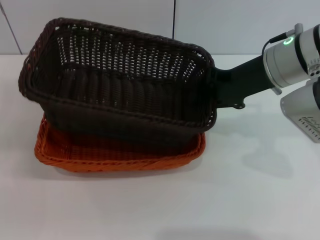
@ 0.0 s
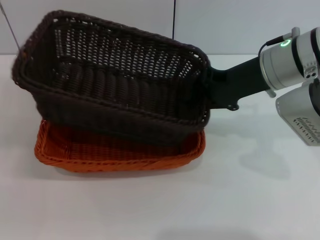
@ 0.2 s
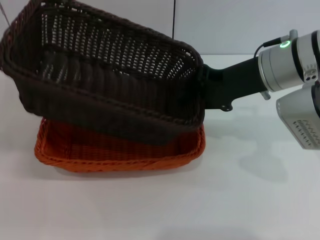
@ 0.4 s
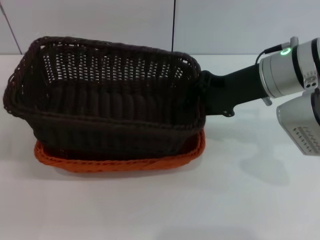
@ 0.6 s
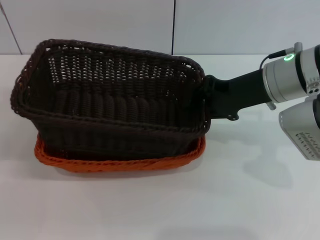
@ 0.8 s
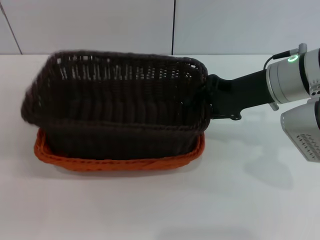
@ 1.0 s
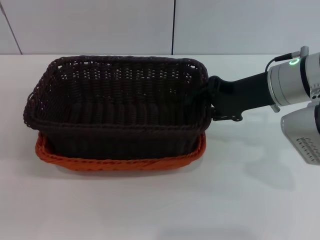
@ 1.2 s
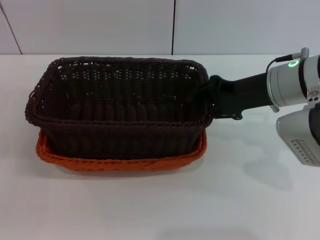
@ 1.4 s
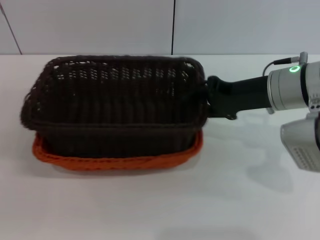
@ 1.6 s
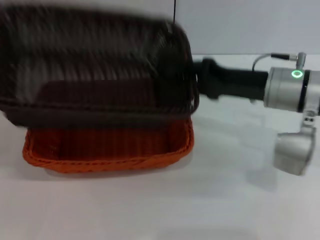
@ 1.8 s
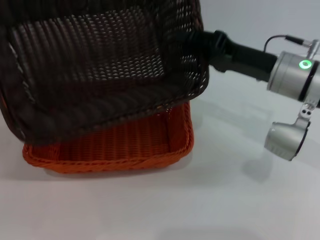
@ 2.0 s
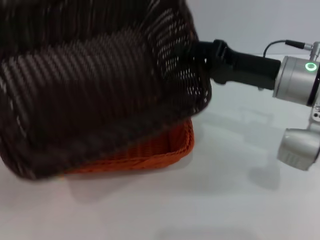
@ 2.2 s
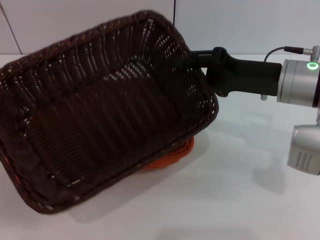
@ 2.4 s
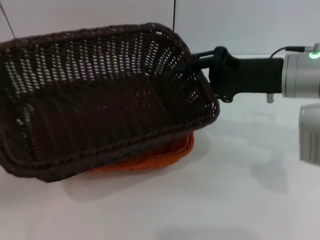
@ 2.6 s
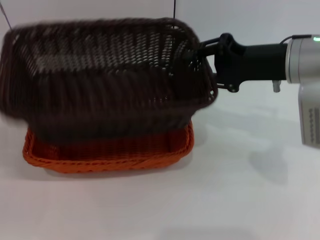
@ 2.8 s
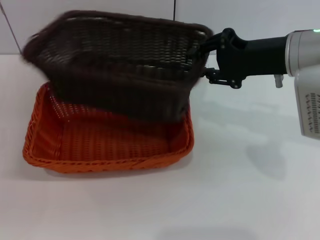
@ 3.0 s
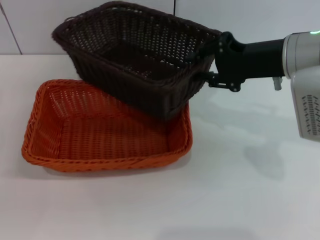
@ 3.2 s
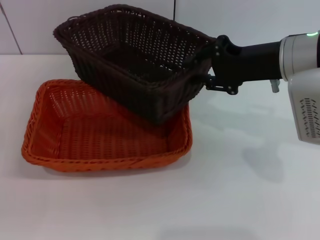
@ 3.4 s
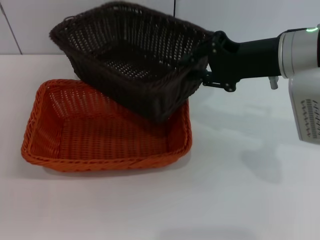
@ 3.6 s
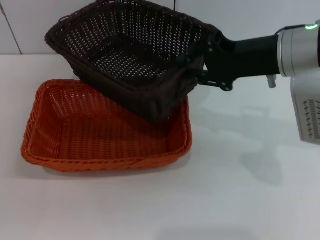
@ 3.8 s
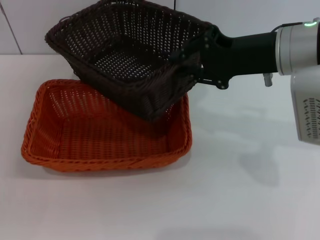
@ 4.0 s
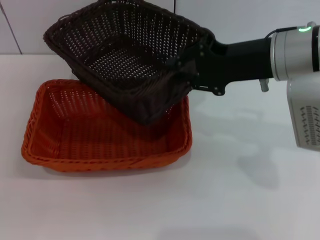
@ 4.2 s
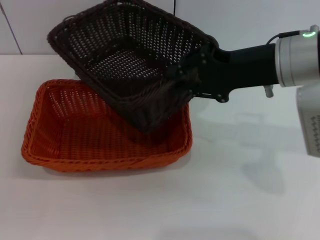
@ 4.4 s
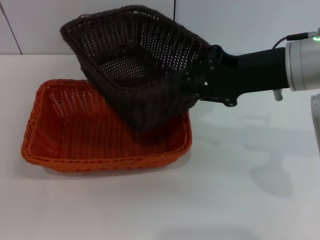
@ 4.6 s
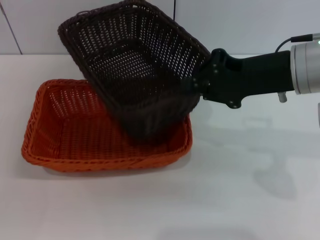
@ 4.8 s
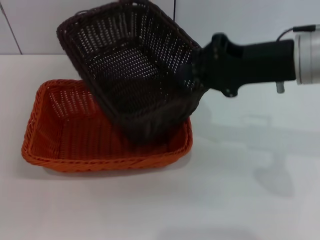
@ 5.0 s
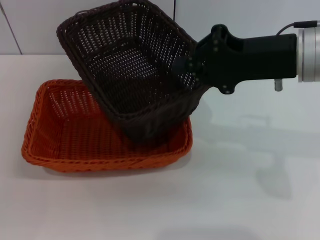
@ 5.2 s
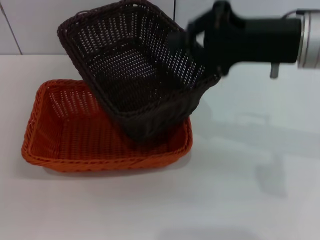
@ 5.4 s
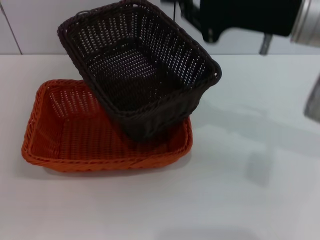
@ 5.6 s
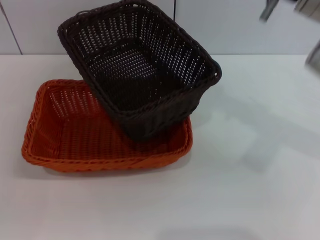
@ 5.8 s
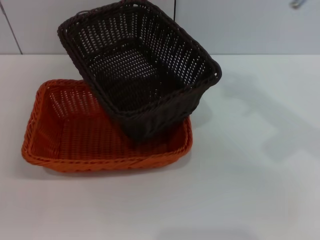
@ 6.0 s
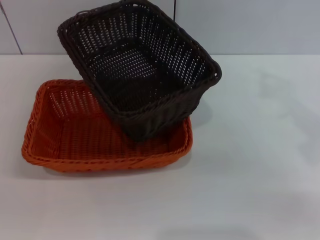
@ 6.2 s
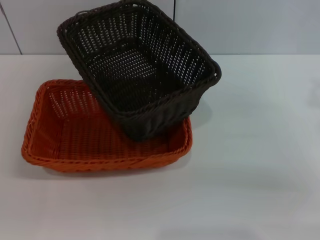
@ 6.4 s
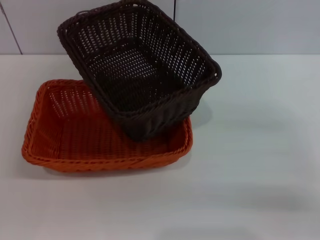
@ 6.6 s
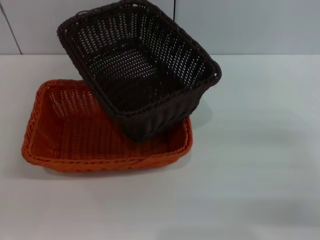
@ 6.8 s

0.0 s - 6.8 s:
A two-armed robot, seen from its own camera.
Step, 0.0 s - 5.2 s: Place the dark basket on the light basket with the right gripper.
0.0 s - 1.4 s: The grippers make only small movements.
4.0 s - 5.4 s: The grippers move only a little.
5.4 s - 6.8 s: The right gripper travels downward, to the right and backward by roughly 25 cm.
